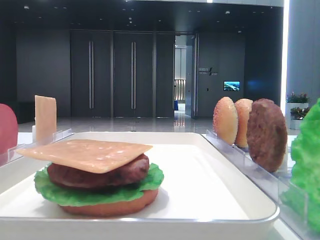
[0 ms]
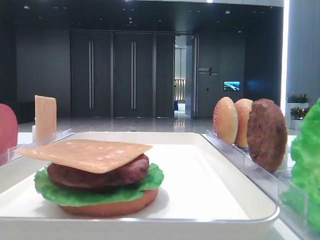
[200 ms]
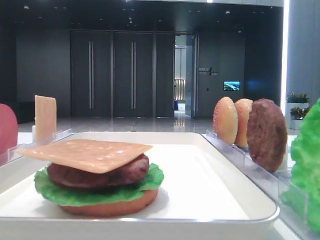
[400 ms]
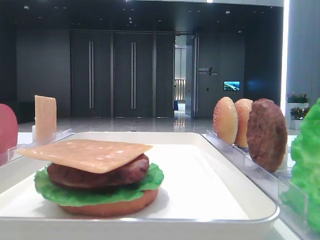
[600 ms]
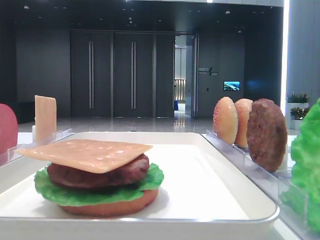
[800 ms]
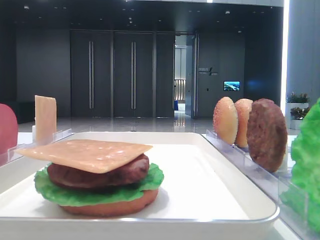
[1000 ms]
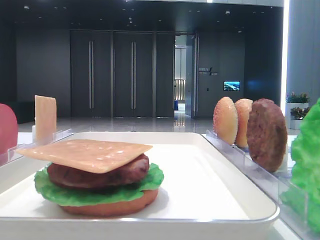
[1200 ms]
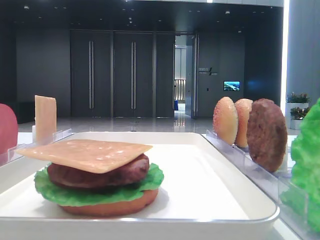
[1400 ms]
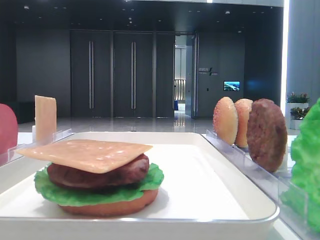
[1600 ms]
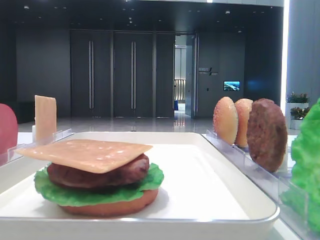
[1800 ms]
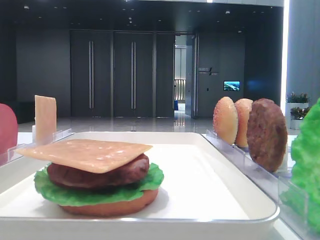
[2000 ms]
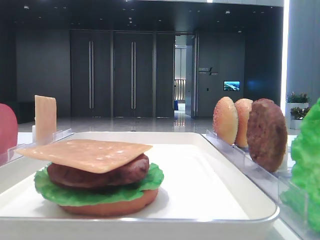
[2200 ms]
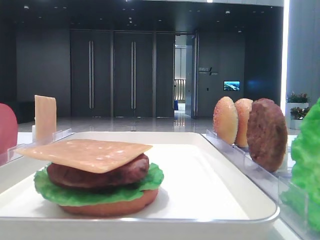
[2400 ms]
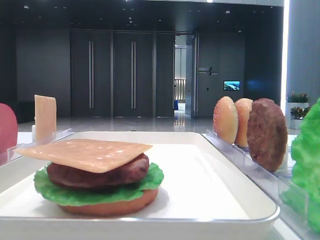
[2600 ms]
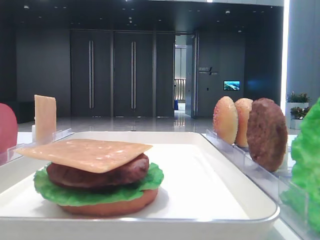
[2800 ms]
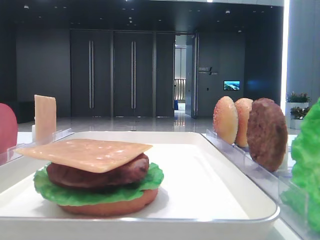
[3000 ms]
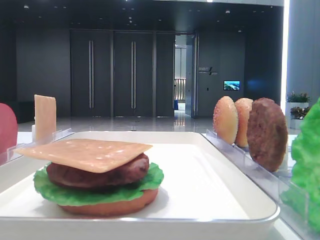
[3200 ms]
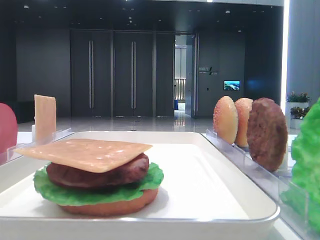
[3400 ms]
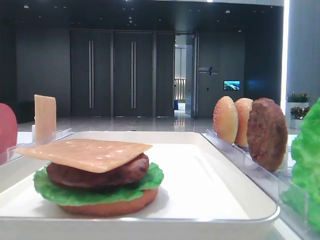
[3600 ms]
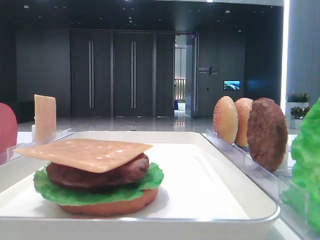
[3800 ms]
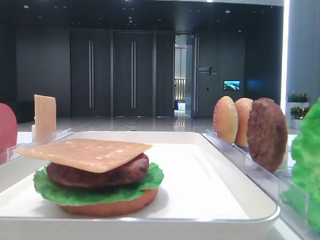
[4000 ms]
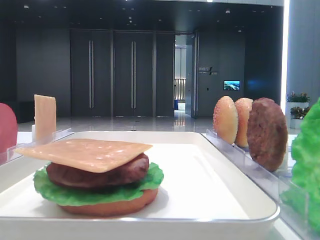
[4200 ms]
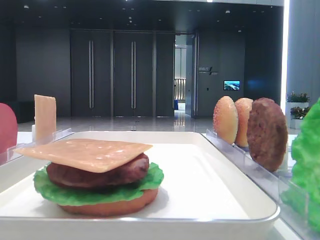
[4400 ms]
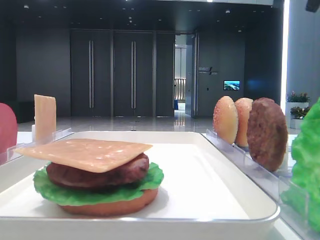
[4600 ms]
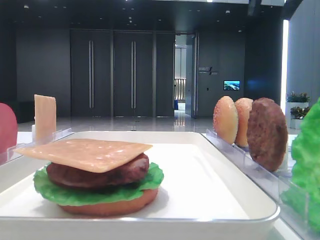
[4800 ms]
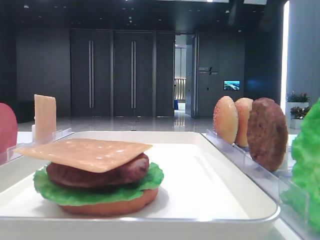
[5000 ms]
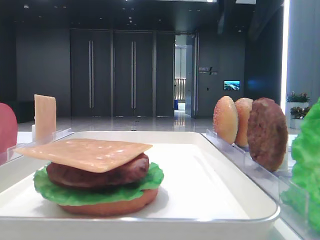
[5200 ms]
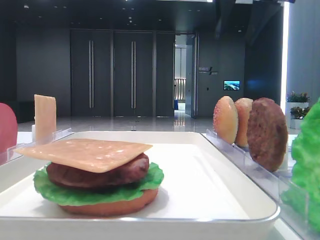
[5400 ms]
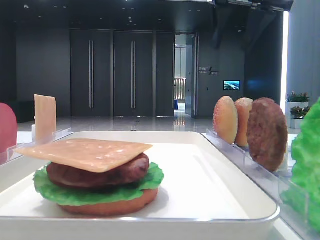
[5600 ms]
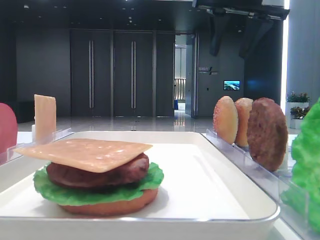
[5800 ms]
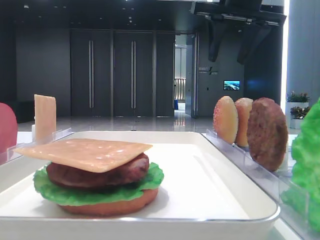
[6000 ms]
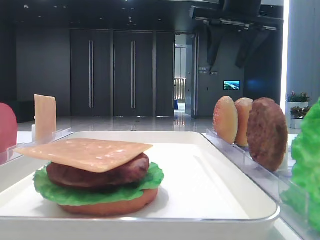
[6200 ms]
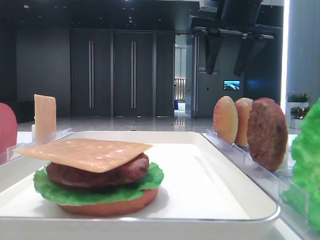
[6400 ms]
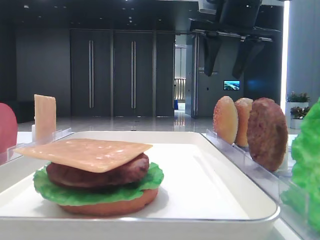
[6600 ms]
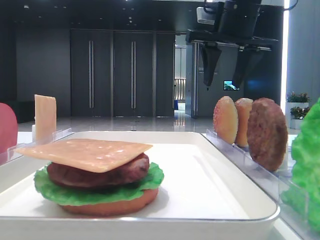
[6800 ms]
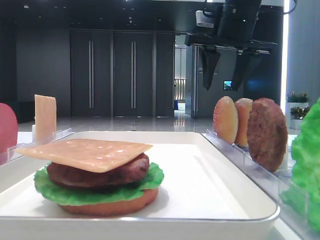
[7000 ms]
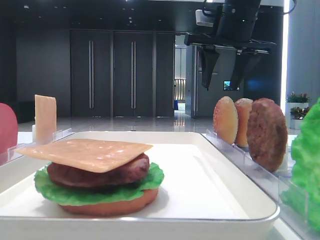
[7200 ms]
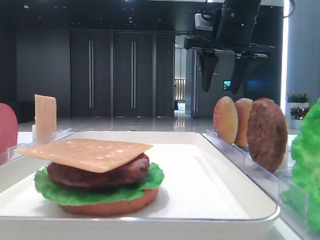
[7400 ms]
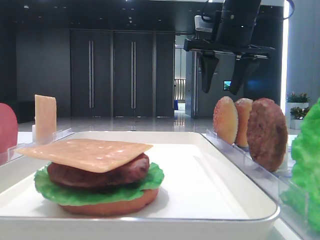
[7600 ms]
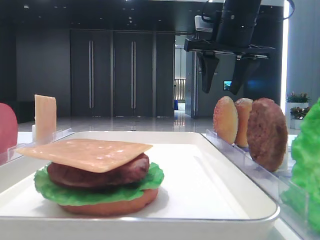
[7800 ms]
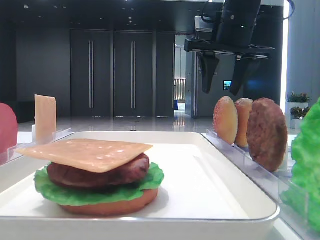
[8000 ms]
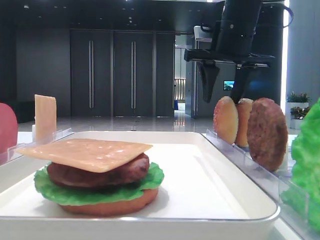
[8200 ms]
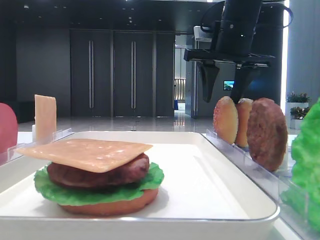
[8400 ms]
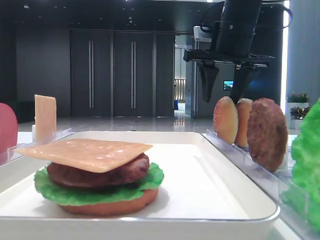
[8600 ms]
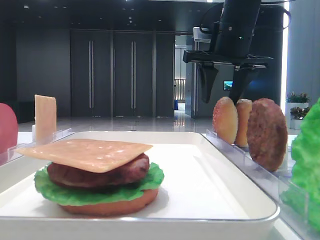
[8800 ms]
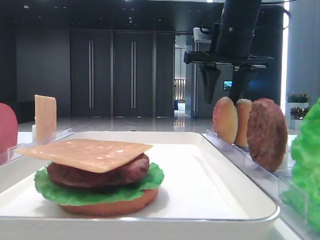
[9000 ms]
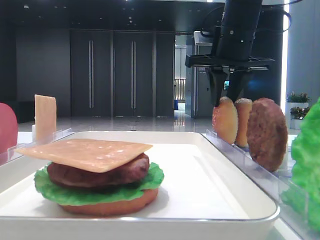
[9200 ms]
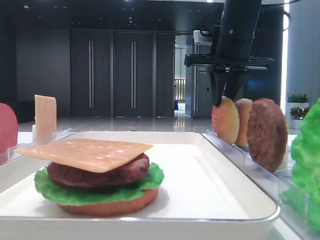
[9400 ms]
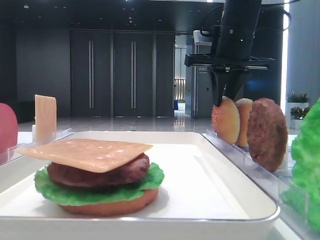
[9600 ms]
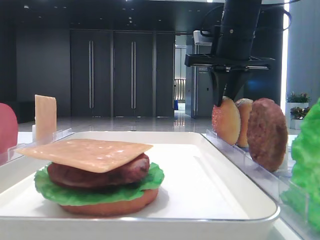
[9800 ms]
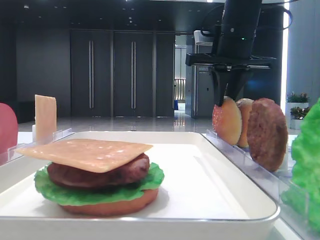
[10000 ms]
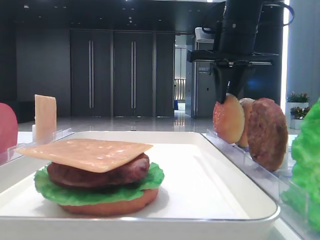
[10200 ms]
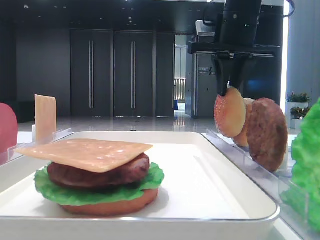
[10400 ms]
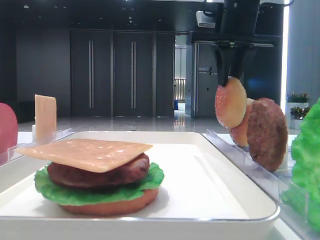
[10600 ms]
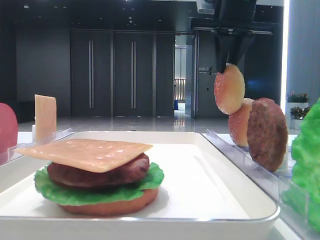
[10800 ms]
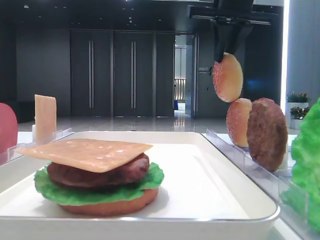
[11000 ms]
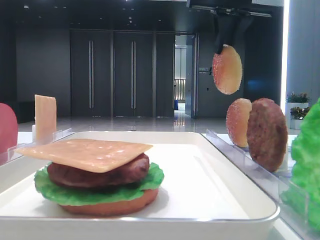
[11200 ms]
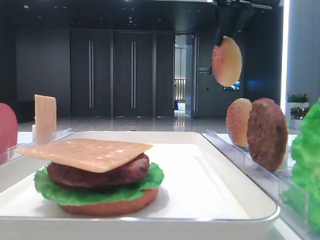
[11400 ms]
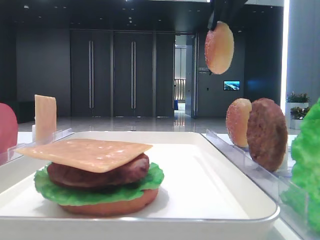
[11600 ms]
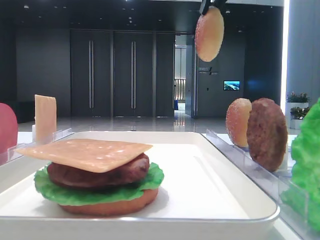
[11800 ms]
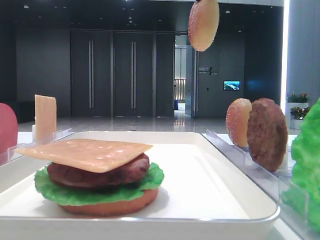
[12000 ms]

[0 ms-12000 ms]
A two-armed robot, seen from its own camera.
Step, 0 ms to 9200 ms: Pick up the top bread slice with the right hand.
1600 ms to 3000 ms: The right gripper shifts some 25 cm forward.
4400 ms to 6000 ms: The right gripper shifts approximately 15 cm to the left, downward and forward.
6000 ms to 7600 ms: The right gripper heads downward, covering approximately 5 cm.
7600 ms to 9000 ms: The grippers stay close to where they were, moving slightly.
9000 ms to 10400 ms: The right gripper closes up.
10400 ms to 12000 ms: The right gripper travels upward by some 15 cm.

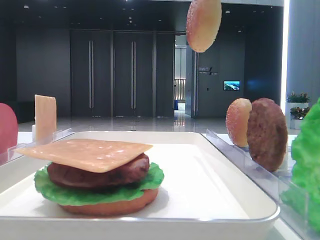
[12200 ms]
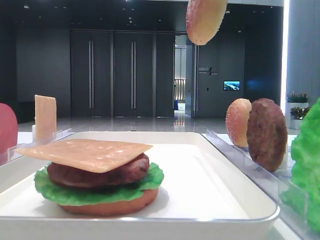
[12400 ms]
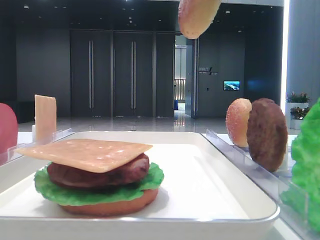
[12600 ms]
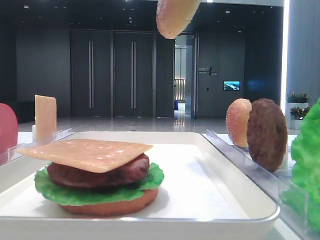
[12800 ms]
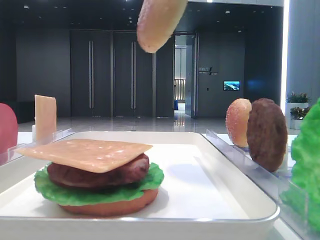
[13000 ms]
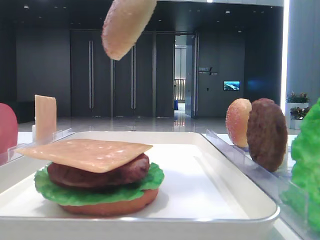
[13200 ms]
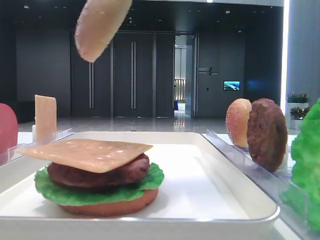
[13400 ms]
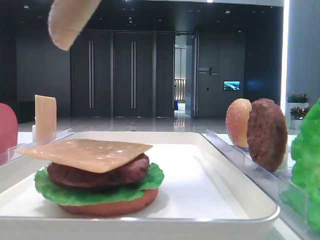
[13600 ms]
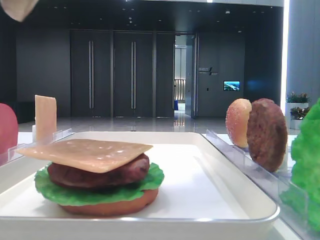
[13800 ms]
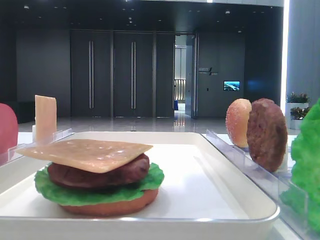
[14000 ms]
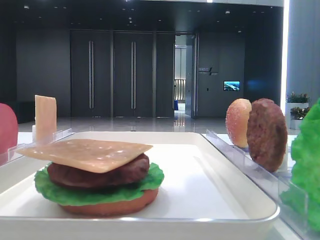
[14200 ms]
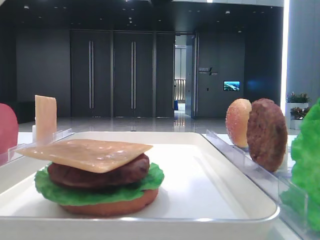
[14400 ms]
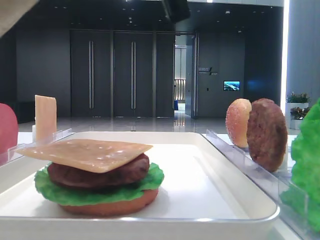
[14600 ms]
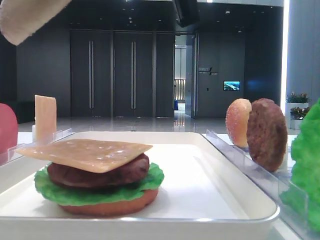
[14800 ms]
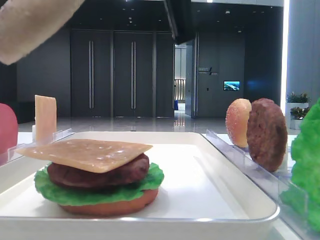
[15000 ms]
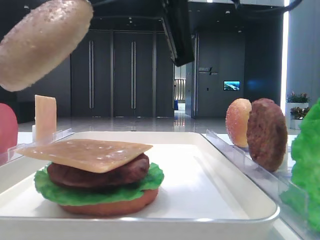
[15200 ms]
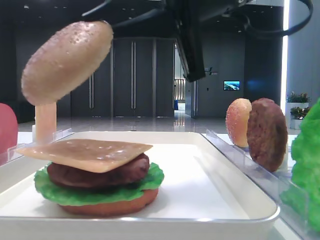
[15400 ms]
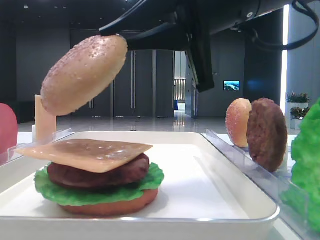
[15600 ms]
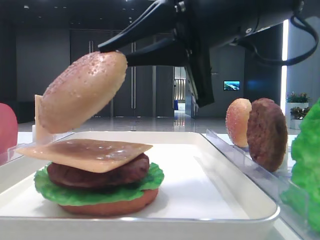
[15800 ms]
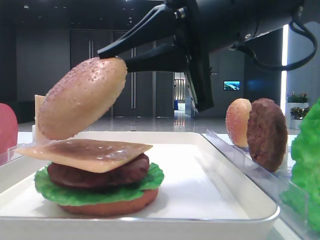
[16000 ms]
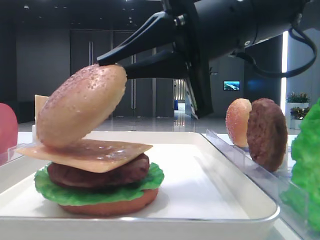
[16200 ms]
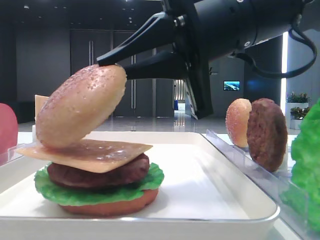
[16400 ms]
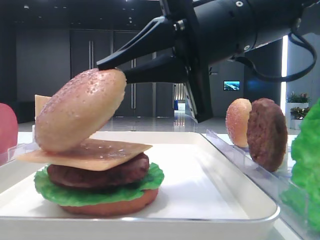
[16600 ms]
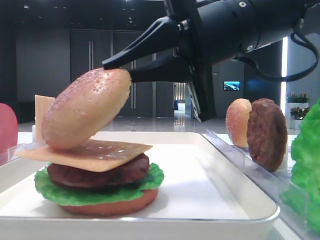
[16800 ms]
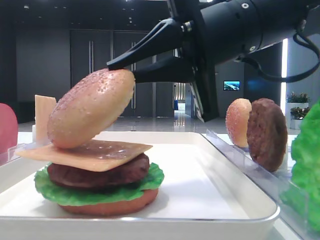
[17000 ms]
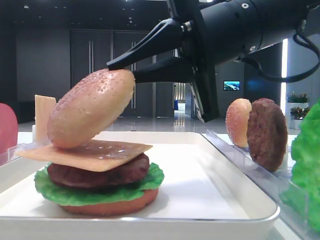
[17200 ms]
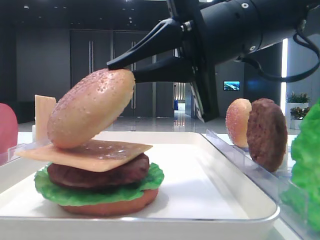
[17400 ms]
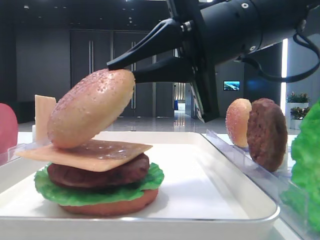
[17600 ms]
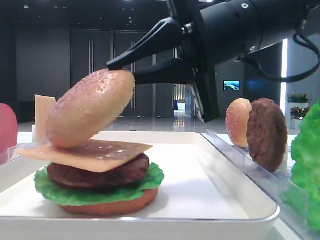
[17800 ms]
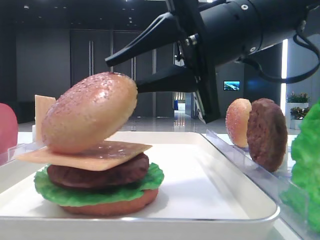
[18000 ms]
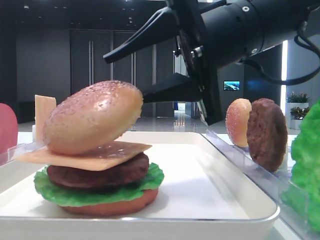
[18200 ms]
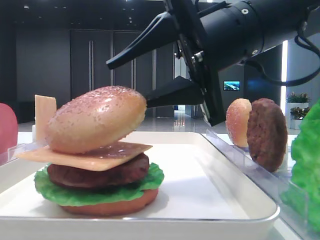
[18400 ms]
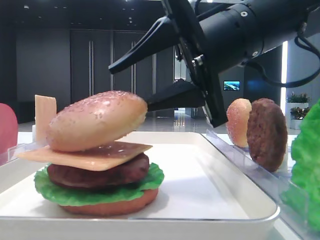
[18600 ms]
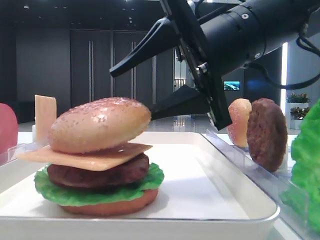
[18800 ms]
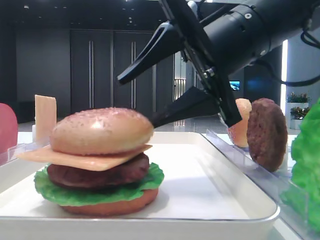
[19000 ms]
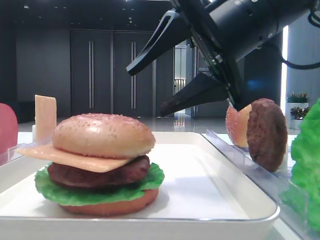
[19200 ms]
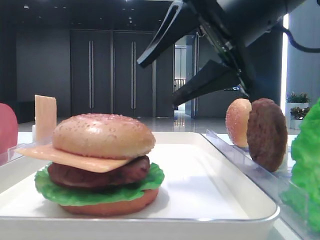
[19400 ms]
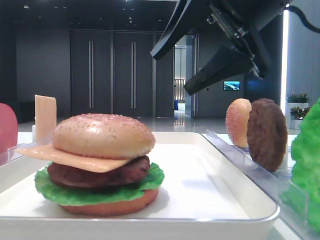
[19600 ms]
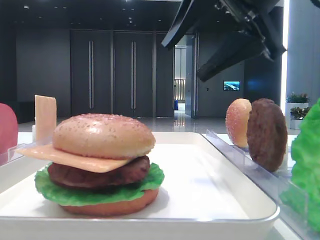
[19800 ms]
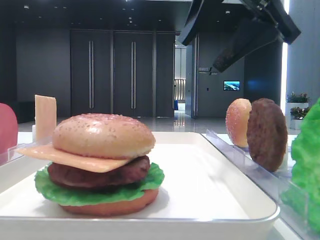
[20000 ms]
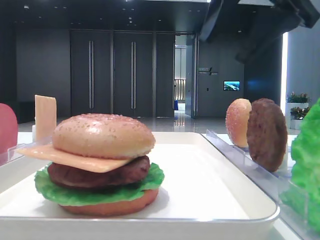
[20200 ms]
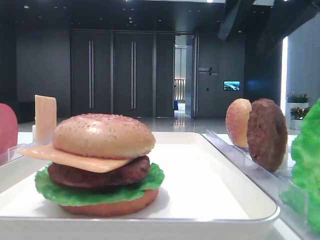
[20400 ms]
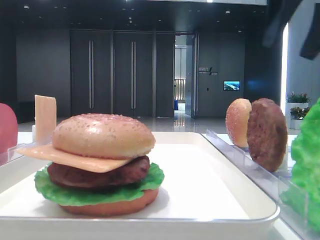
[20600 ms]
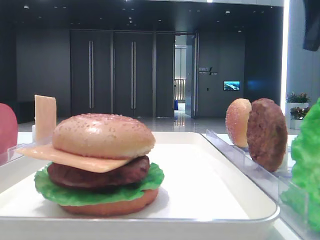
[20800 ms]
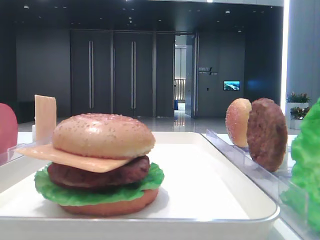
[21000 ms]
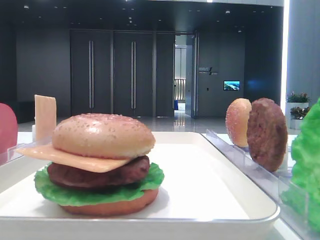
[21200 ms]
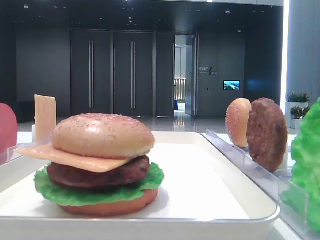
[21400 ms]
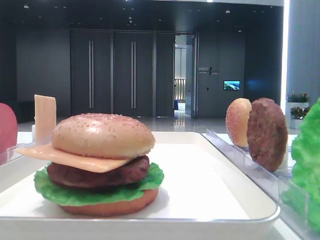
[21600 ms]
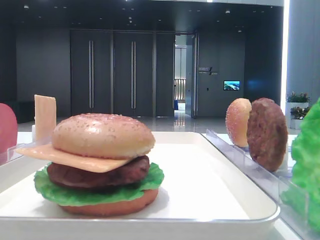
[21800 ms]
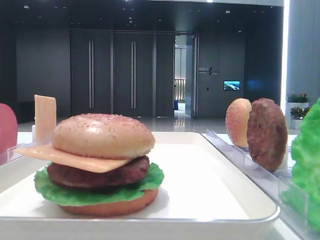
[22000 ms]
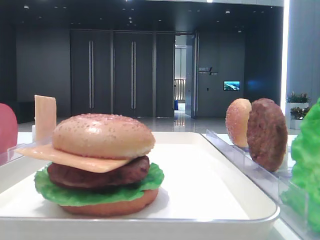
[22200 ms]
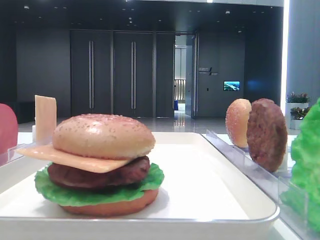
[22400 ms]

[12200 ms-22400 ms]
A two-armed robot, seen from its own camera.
Step, 12200 ms to 19000 ms: Place the top bread slice on the cheese with the right hand.
12200 ms to 13600 ms: The right gripper shifts roughly 15 cm backward, to the left and downward.
13600 ms to 15200 ms: The right gripper shifts about 10 cm downward.
15200 ms to 16600 ms: The right gripper shifts about 5 cm downward.
16600 ms to 18000 ms: Neither gripper changes place.
18000 ms to 19400 ms: The right gripper opens up.
19400 ms to 21000 ms: The right gripper moves to the right and upward, roughly 20 cm.
